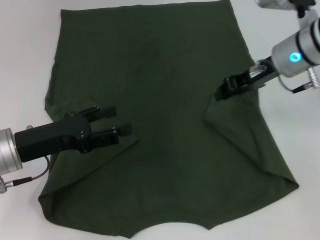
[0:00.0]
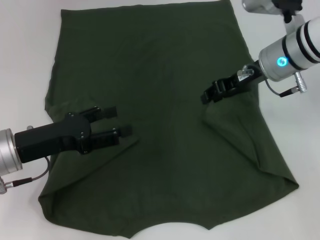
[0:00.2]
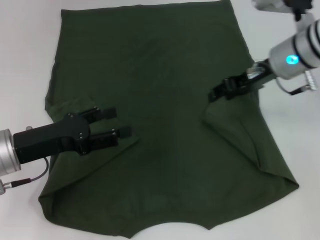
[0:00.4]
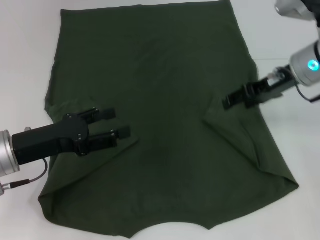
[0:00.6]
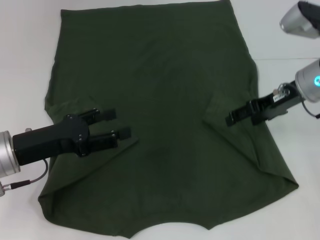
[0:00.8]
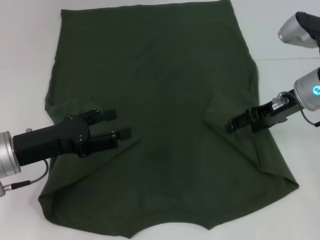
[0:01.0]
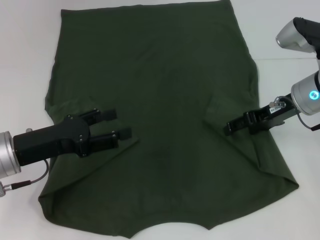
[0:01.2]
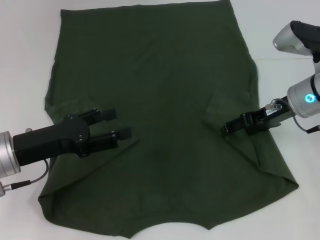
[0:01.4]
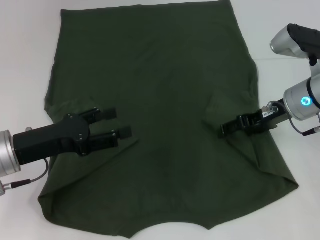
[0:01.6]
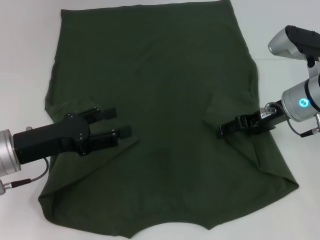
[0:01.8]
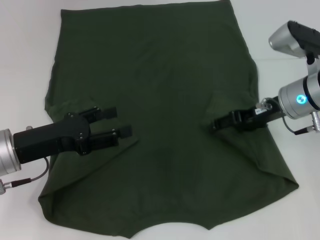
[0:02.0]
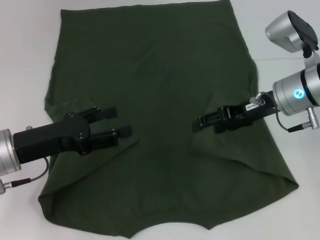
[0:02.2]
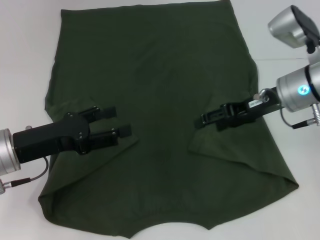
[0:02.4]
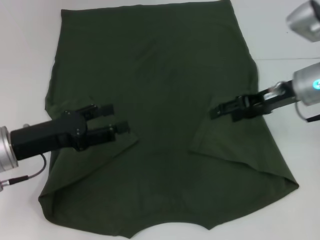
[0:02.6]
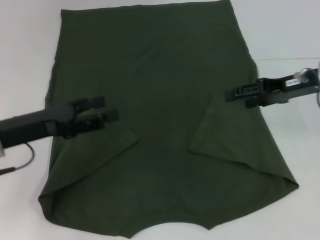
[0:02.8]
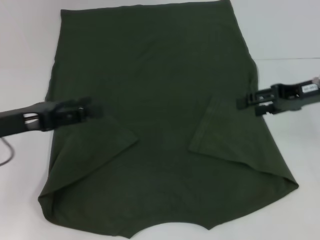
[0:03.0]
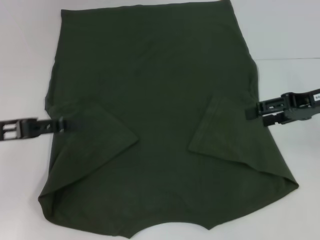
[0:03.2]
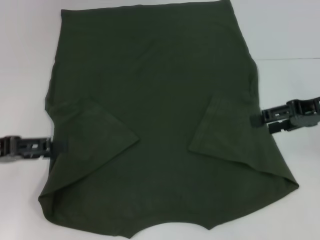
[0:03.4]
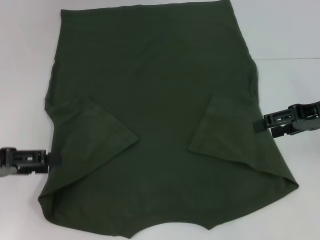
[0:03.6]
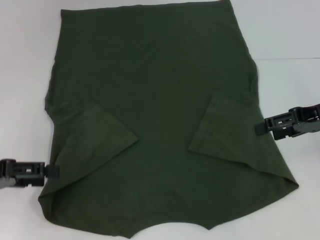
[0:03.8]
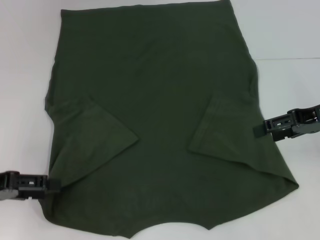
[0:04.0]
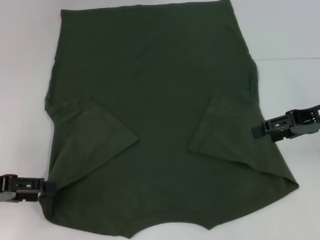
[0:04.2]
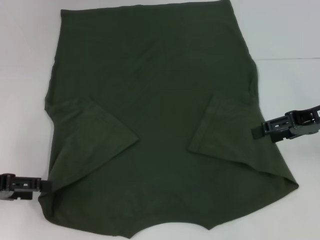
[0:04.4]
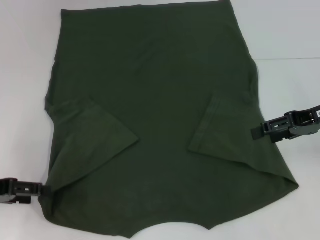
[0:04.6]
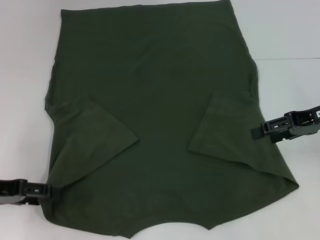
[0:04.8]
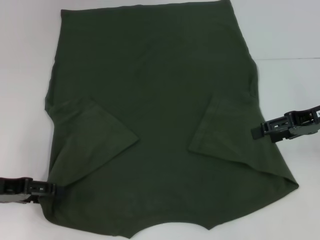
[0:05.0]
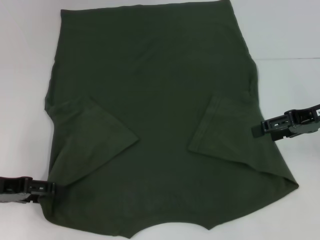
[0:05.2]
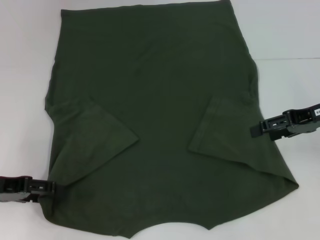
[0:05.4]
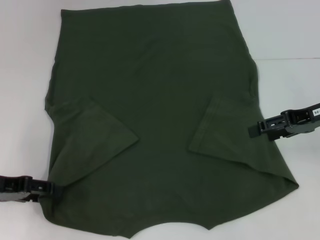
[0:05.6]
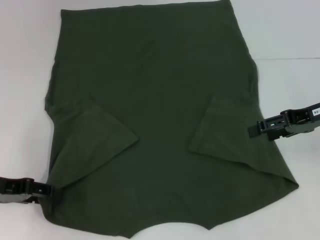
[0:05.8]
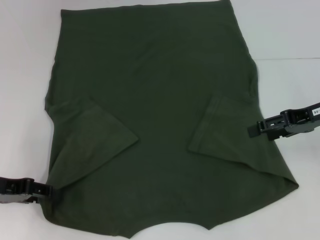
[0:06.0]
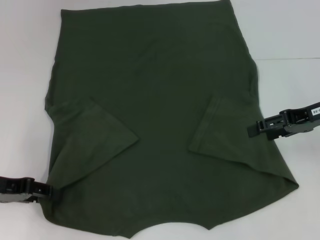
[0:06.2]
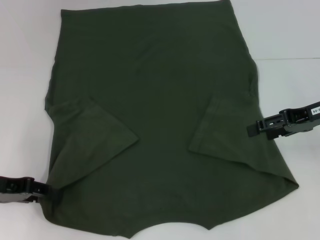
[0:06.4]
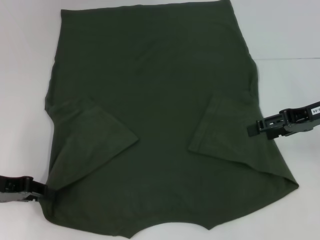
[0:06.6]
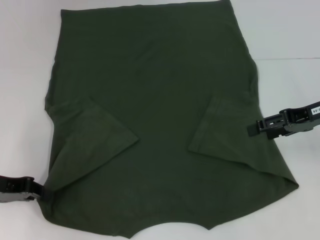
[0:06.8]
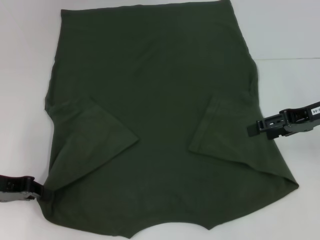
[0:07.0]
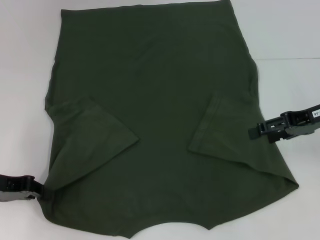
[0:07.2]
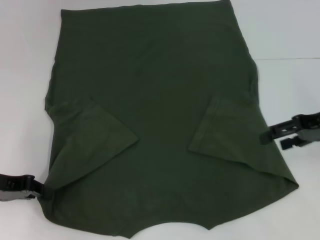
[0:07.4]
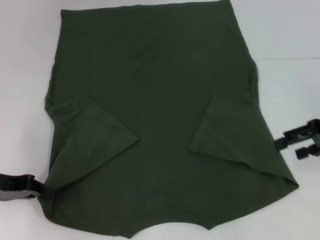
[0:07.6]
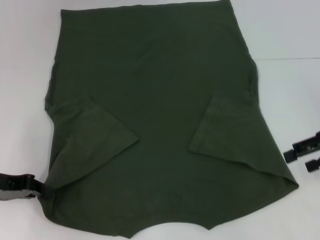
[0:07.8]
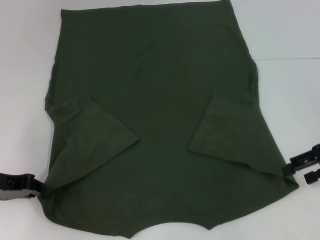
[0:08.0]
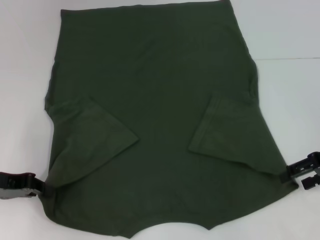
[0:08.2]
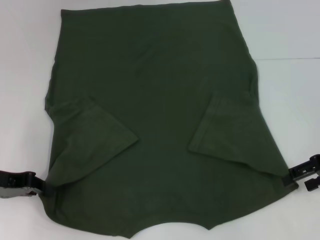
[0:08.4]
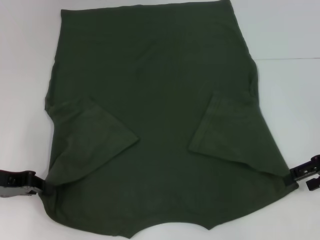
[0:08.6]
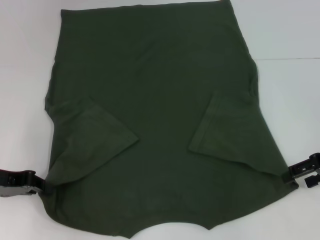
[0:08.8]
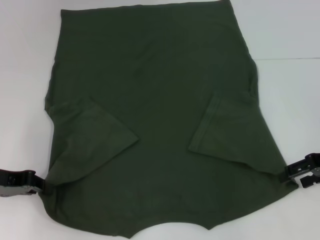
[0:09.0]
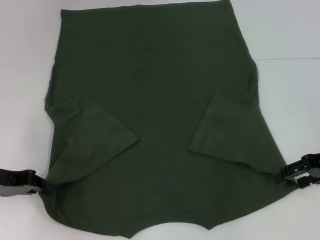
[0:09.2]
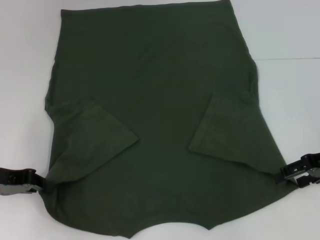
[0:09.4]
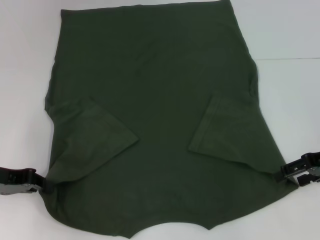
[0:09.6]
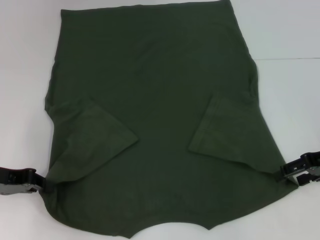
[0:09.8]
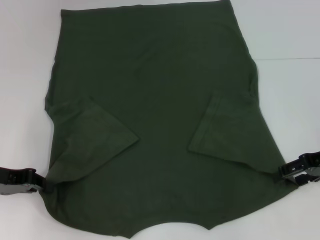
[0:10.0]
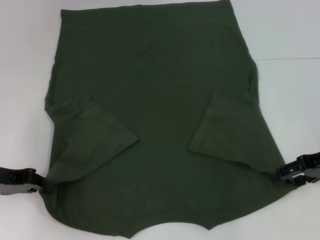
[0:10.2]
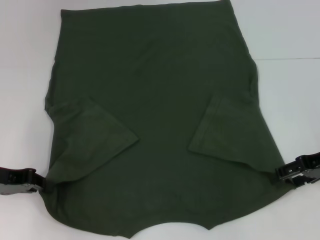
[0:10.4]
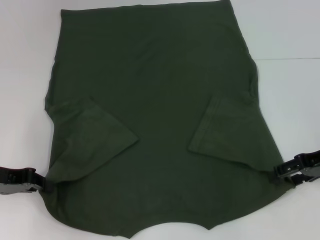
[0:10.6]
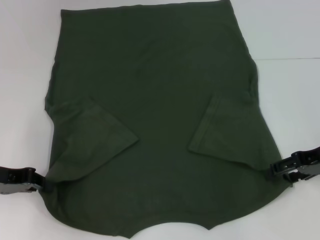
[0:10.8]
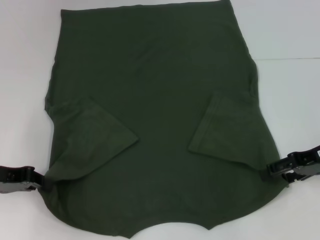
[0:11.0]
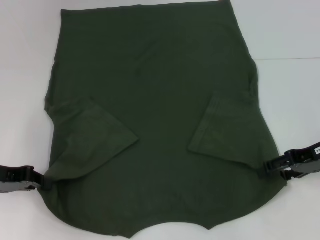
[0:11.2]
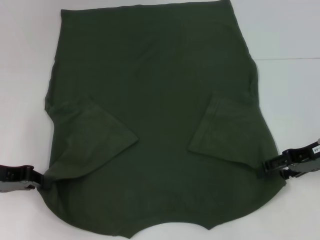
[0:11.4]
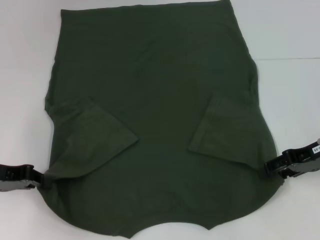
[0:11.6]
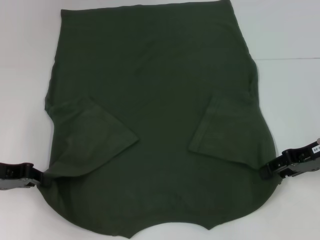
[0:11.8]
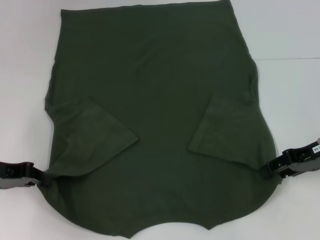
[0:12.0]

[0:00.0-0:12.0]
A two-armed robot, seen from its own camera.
Step, 0:00.0 to 0:02.2: Fold the bottom right sleeve with your right hand.
Step, 0:02.4 to 0:08.0: Grab the bottom left corner with your left hand.
0:00.0 to 0:01.6: The right gripper heads downward, covering roughly 5 cm, and opens its fingers.
0:01.6 to 0:03.0: The right gripper goes approximately 5 cm to the right. Meanwhile the left gripper moves about 5 cm.
0:03.0 to 0:04.4: The left gripper shifts approximately 5 cm to the left.
0:04.4 to 0:06.0: The left gripper closes its fingers.
0:06.0 to 0:07.6: The left gripper closes its fingers.
0:07.6 to 0:09.0: There are only small adjustments of the grippers.
0:09.0 to 0:10.4: The two grippers keep their place.
0:10.4 to 0:12.0: The right gripper closes up.

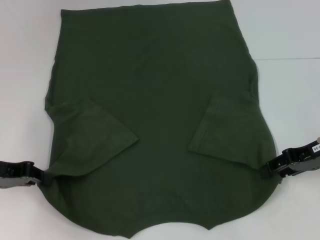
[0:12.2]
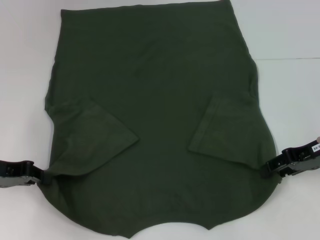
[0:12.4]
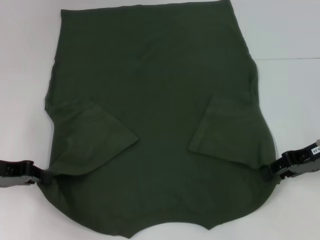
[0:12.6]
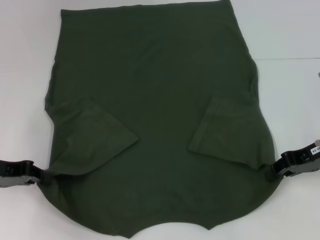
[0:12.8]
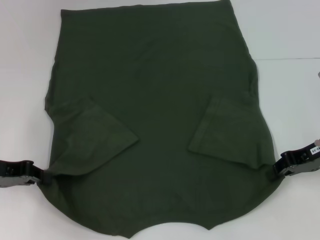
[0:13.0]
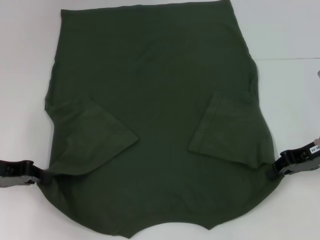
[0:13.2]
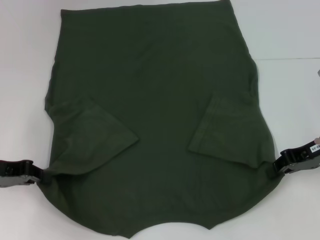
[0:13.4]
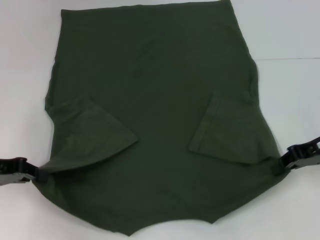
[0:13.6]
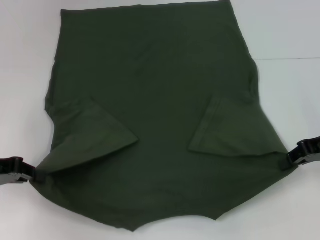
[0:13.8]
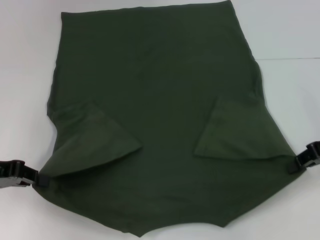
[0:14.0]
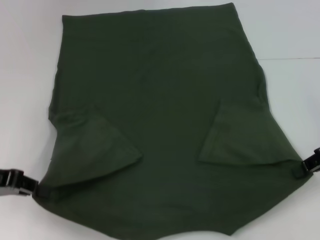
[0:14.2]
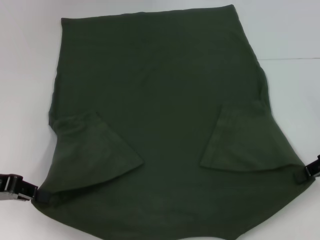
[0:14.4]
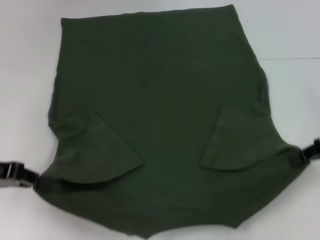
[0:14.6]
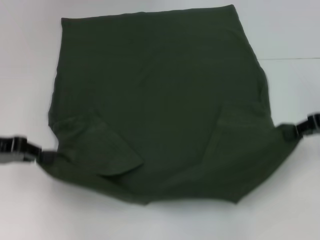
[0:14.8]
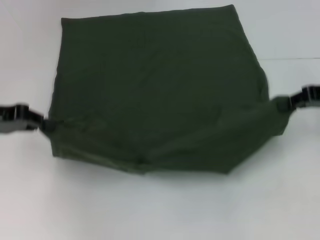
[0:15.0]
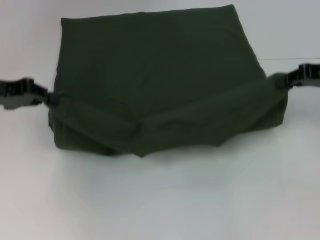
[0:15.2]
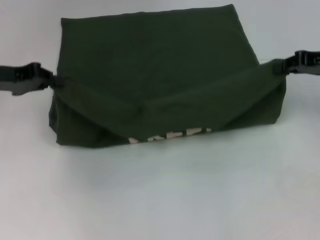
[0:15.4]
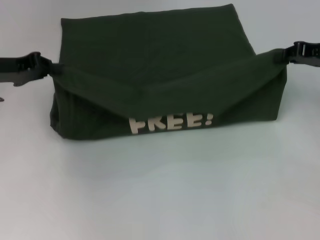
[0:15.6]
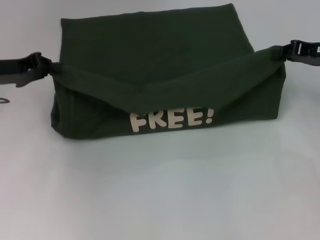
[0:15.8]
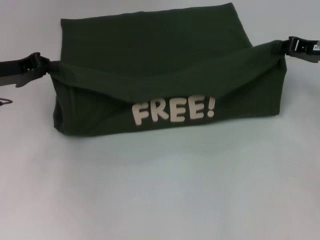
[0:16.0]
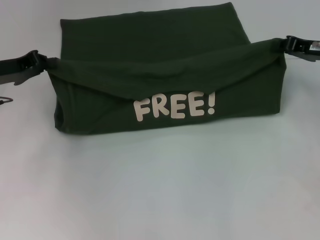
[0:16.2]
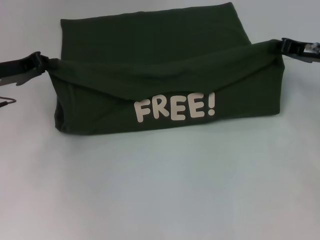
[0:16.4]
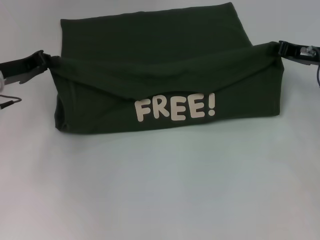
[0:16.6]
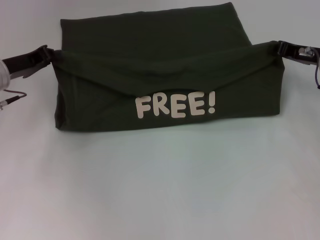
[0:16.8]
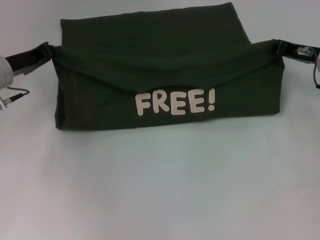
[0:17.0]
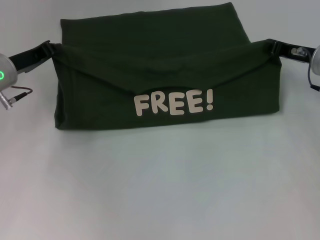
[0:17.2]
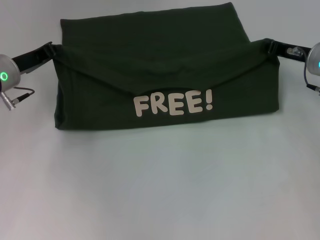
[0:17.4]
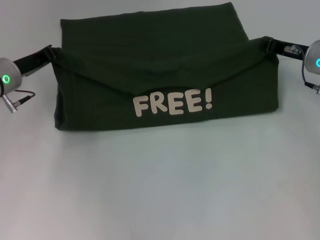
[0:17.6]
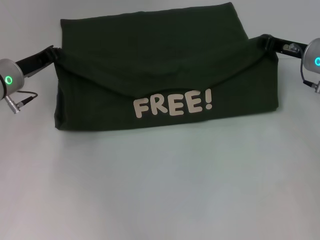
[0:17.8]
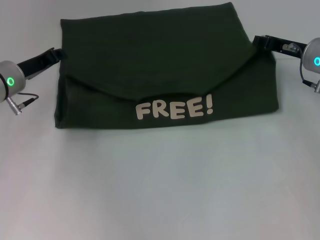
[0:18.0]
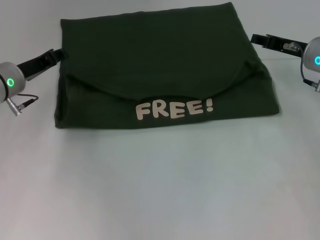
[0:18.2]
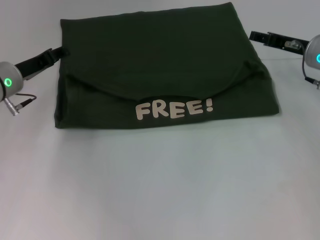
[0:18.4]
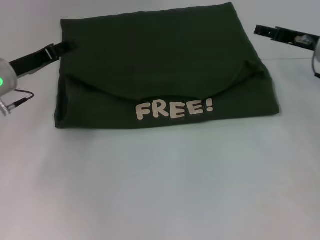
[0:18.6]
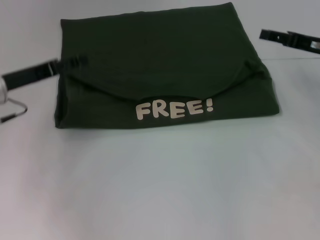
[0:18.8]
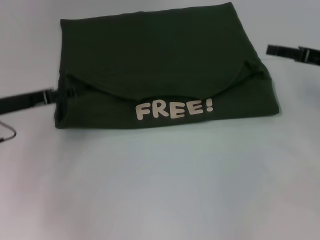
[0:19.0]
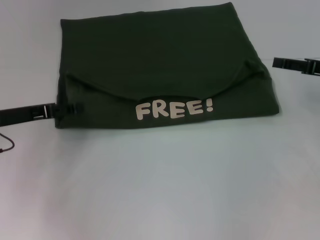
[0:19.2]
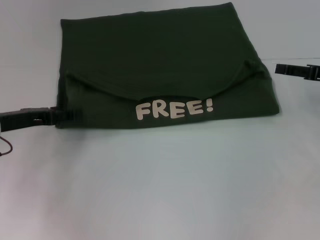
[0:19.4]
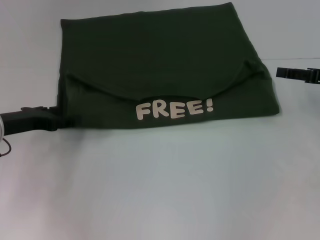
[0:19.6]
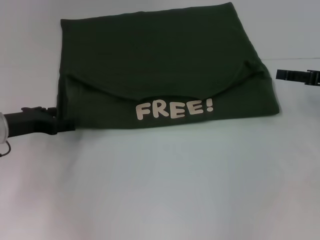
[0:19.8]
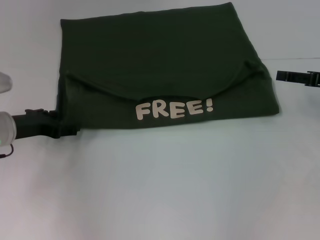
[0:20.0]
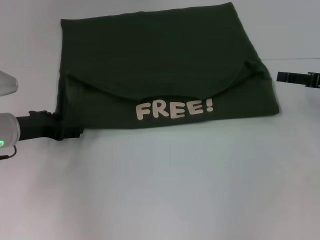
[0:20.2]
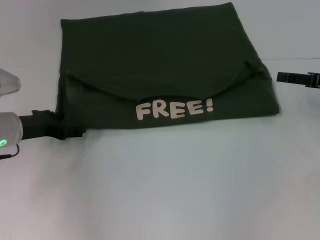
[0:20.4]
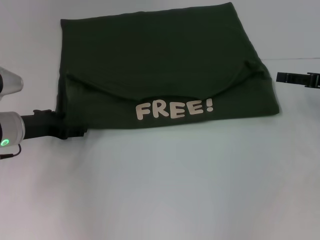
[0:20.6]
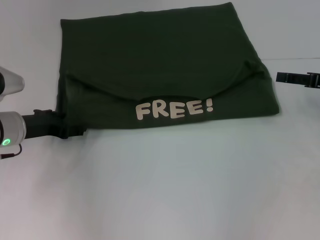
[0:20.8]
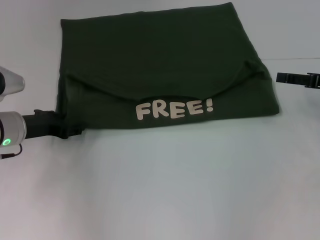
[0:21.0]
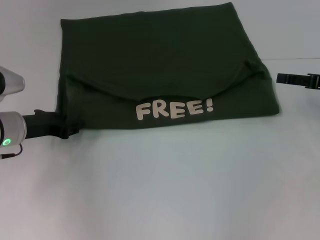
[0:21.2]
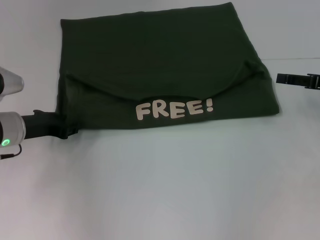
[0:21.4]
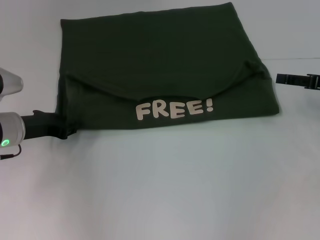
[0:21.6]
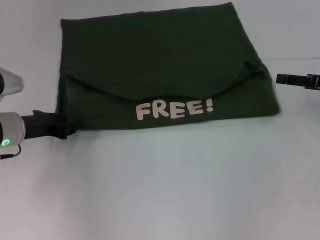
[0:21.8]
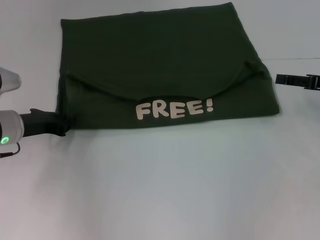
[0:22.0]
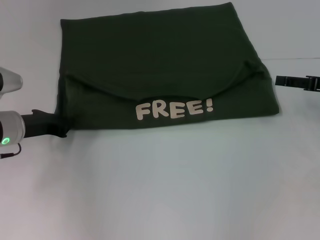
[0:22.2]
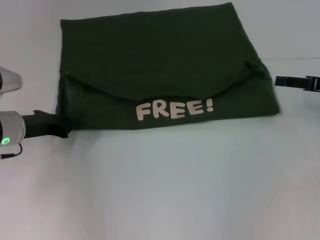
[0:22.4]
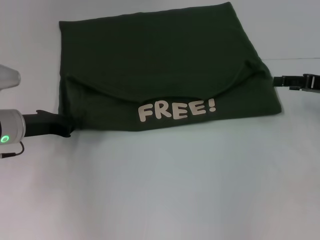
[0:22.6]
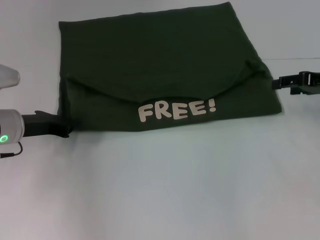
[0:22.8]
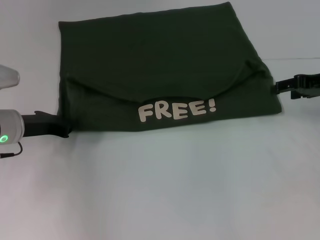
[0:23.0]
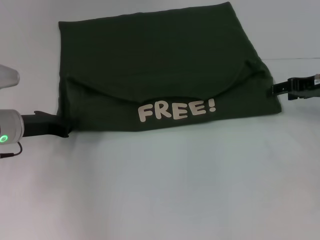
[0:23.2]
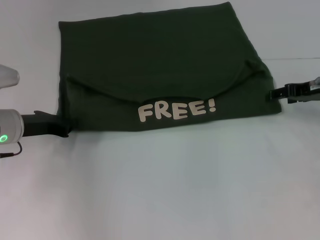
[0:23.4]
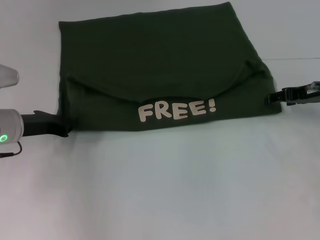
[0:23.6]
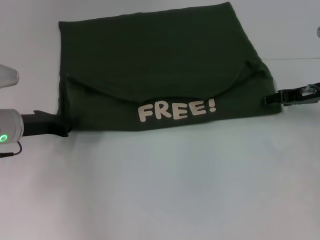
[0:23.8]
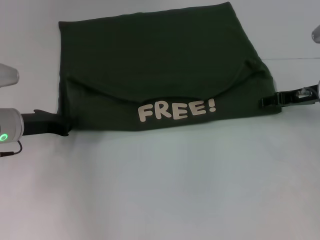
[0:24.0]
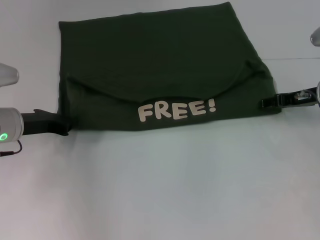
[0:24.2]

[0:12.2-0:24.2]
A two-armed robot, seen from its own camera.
Step, 0:13.8 to 0:18.2: Fold the clothes with your left hand.
Step, 0:13.8 to 0:18.2: Fold the clothes with your right hand.
0:12.2 to 0:13.8: The right gripper closes up.
0:13.8 to 0:15.2: The right gripper changes place by approximately 5 cm. Meanwhile the left gripper is displaced forward and upward by approximately 10 cm.
0:15.2 to 0:16.6: The two grippers go approximately 5 cm downward.
0:16.6 to 0:18.2: The grippers move only a little.
0:18.2 to 0:19.8: The left gripper travels backward by some 5 cm, and opens up, while the right gripper travels to the right and backward by some 10 cm, and opens its fingers.
0:19.8 to 0:21.2: The left gripper closes.
0:21.2 to 0:22.6: The left gripper closes up.
0:22.6 to 0:24.2: The right gripper shifts some 5 cm to the left.
